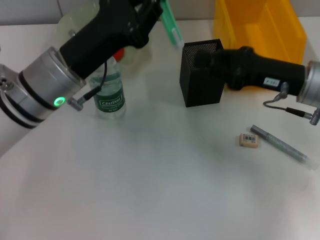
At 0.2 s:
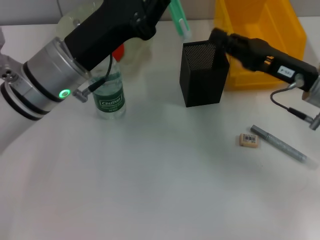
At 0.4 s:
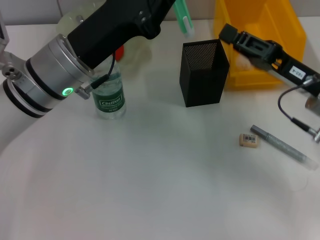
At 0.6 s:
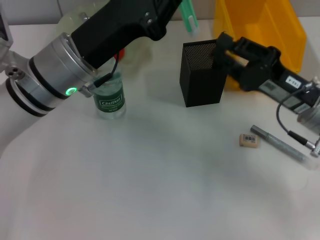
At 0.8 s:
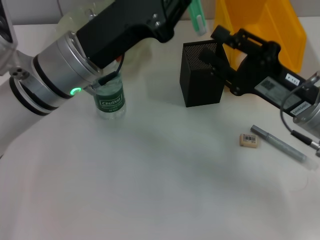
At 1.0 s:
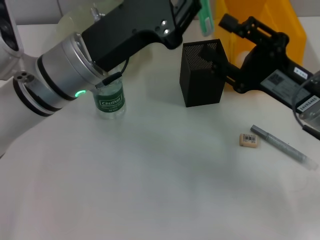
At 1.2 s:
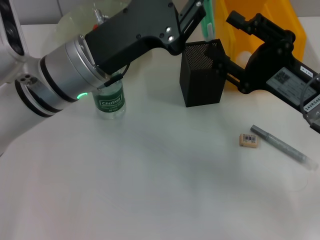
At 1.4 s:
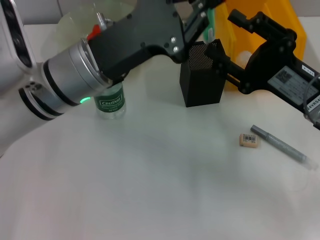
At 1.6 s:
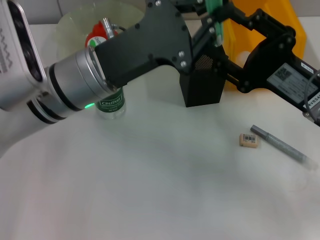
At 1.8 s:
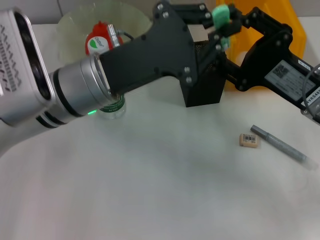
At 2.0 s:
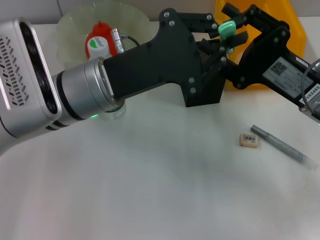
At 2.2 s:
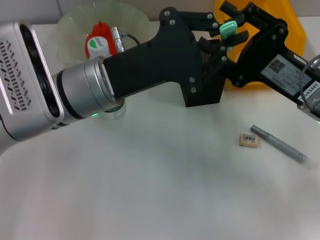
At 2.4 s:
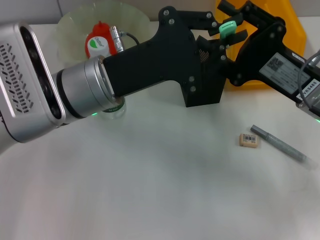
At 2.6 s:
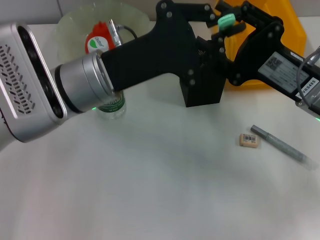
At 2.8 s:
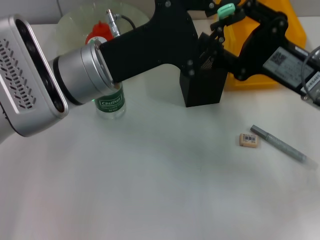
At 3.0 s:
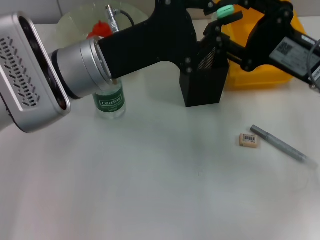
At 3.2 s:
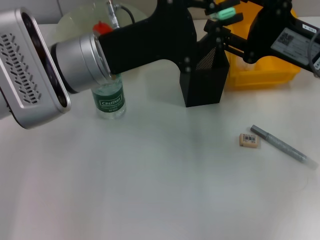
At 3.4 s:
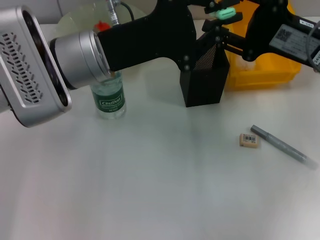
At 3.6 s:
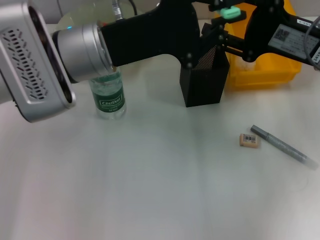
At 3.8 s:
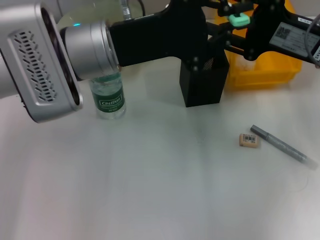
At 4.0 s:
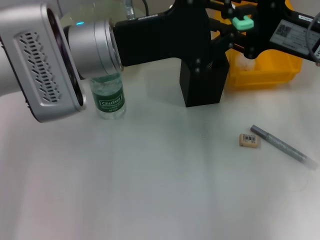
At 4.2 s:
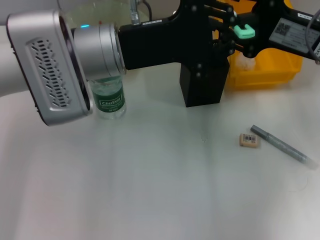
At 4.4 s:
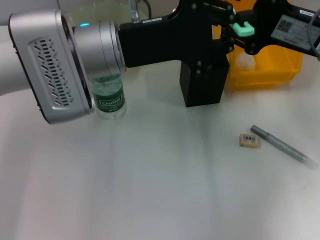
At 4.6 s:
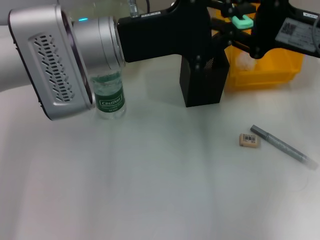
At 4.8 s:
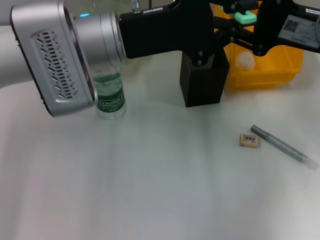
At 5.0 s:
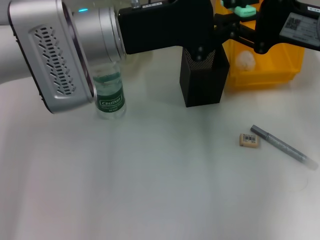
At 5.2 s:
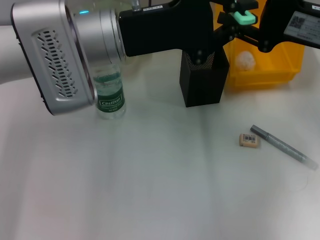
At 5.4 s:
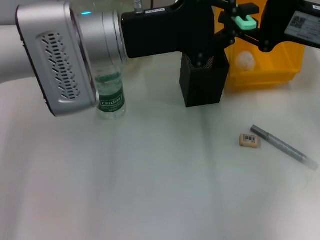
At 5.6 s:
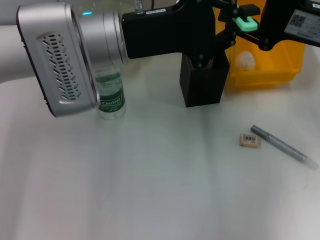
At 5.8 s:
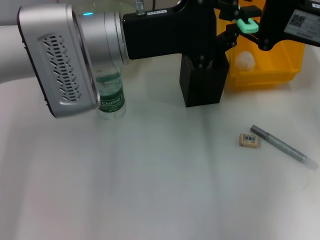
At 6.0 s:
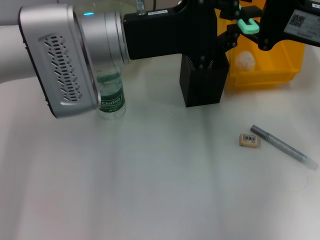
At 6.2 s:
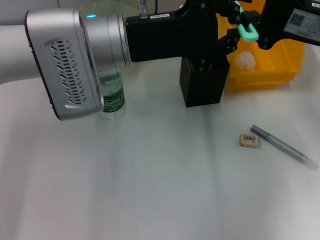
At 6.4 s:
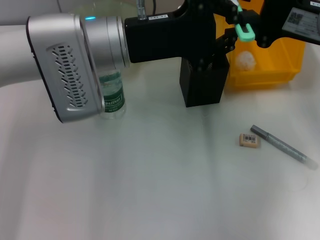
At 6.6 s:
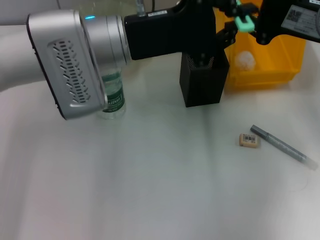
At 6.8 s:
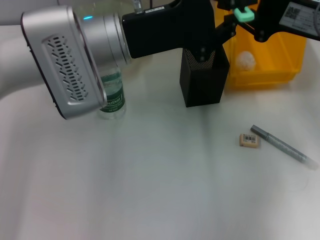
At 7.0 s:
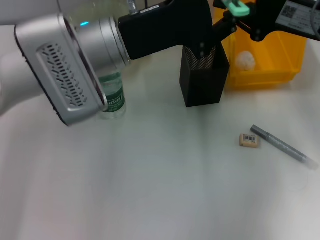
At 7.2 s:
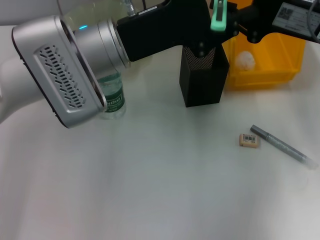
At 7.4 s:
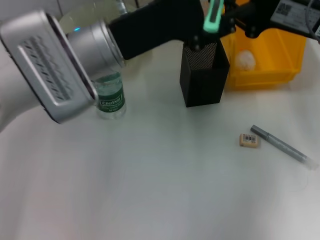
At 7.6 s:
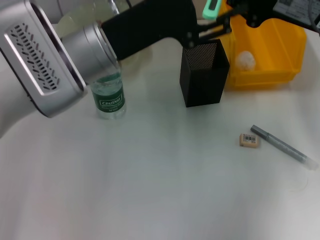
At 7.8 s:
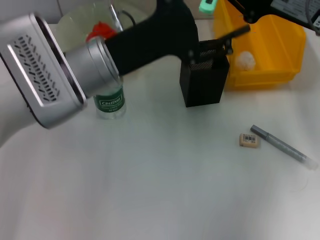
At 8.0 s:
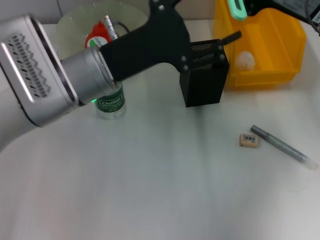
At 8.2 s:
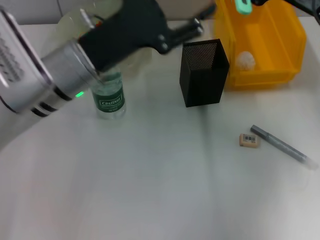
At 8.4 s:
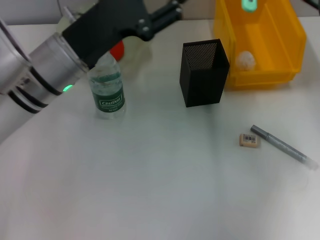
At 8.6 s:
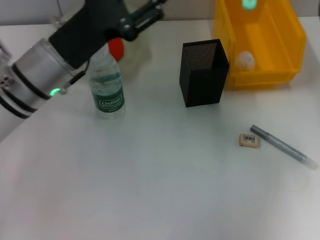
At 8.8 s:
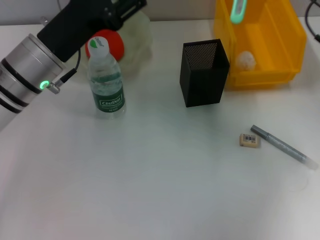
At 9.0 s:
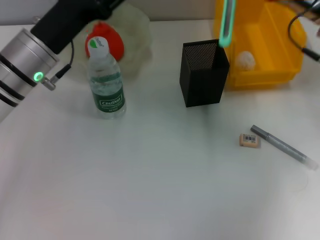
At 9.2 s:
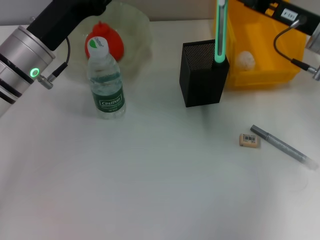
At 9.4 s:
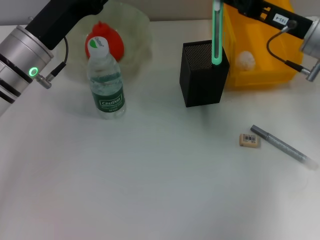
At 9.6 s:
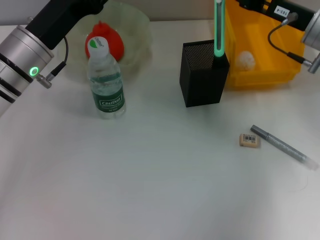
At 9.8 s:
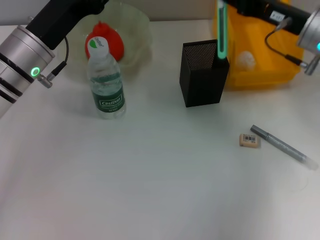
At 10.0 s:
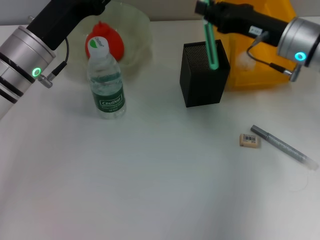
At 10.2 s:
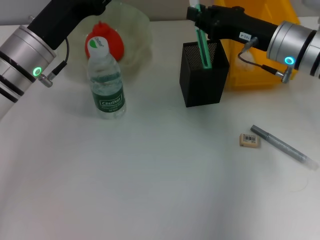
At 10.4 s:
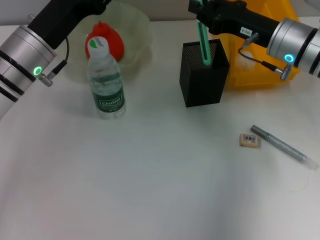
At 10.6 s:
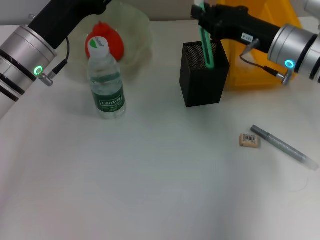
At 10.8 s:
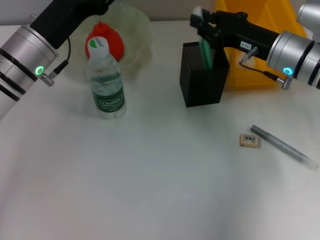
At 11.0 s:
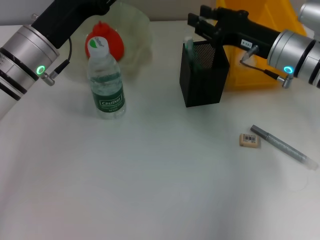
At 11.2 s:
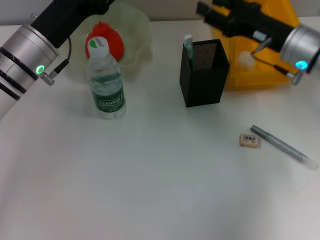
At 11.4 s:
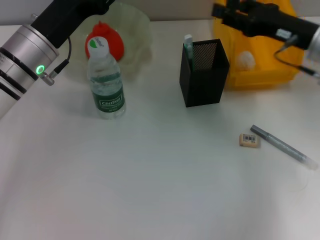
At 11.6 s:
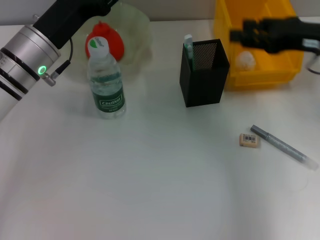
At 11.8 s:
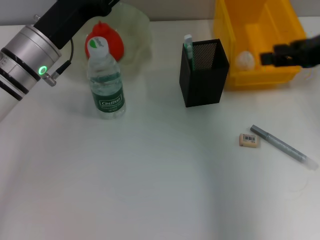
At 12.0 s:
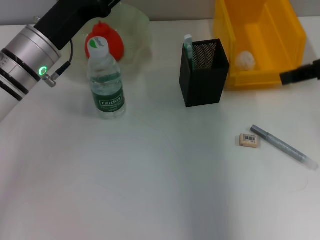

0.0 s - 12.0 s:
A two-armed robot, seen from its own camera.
Step, 0.0 s - 11.2 s: Place the blue utility knife into the pen holder with the right hand.
0.0 s - 1.6 s: The right gripper opens its fingers.
4.4 s - 6.0 s: The grippers make only small movements.
6.0 s - 7.6 s: The left gripper opens.
7.6 s - 9.0 s: The left gripper travels to the left by some 5 cm.
9.0 s - 10.4 s: The right gripper moves some 5 cm.
10.4 s - 12.0 s: The right gripper goes about 15 cm upward, to the right and backward, and opens up.

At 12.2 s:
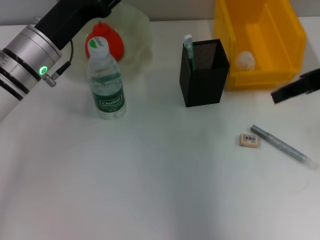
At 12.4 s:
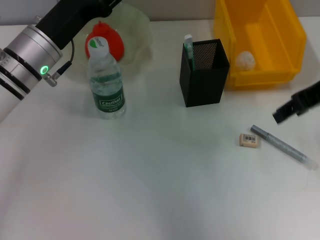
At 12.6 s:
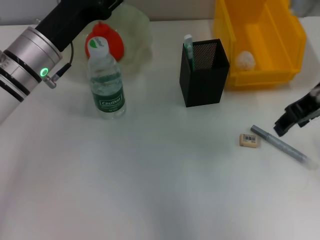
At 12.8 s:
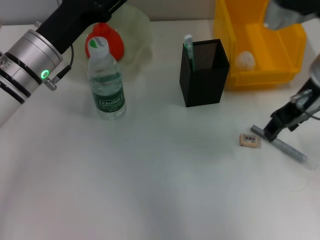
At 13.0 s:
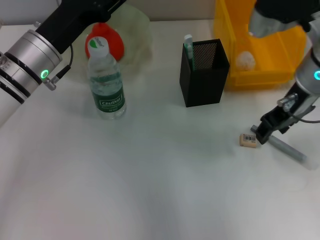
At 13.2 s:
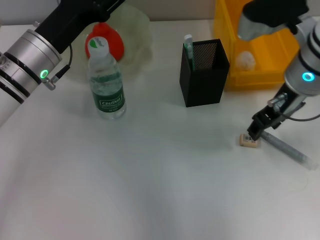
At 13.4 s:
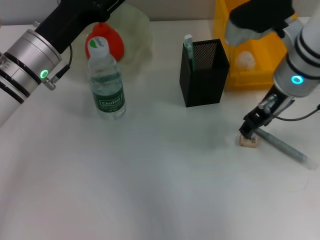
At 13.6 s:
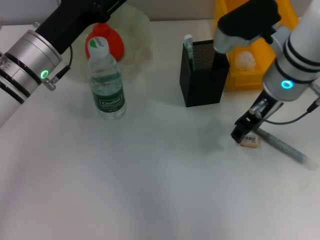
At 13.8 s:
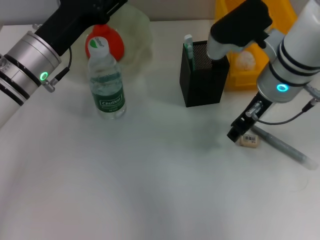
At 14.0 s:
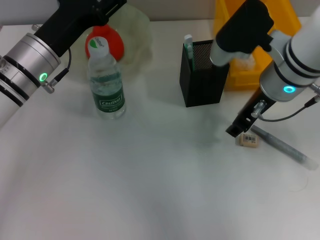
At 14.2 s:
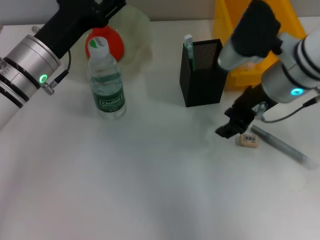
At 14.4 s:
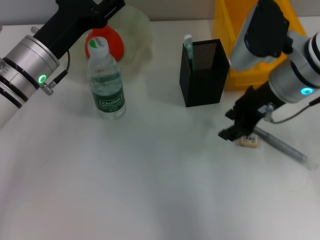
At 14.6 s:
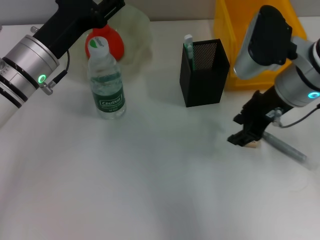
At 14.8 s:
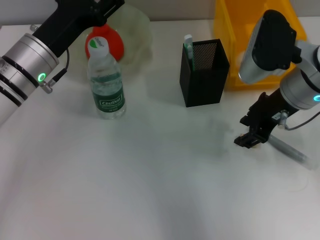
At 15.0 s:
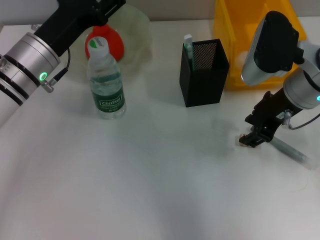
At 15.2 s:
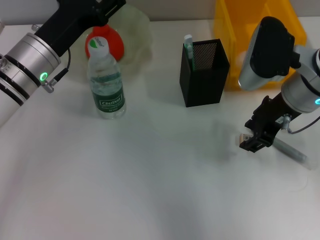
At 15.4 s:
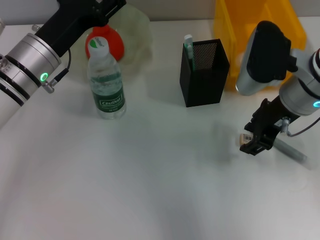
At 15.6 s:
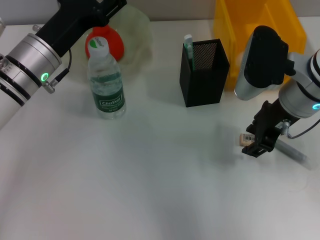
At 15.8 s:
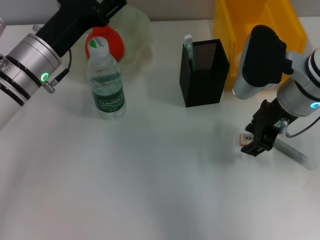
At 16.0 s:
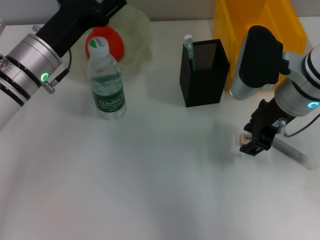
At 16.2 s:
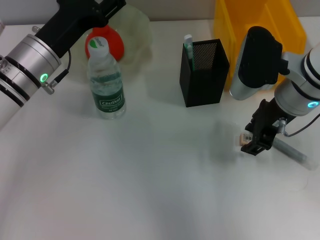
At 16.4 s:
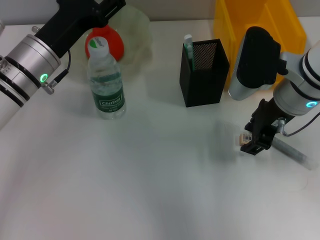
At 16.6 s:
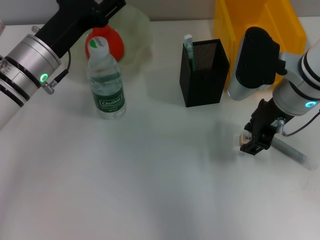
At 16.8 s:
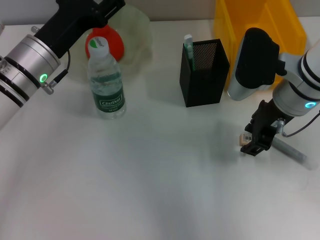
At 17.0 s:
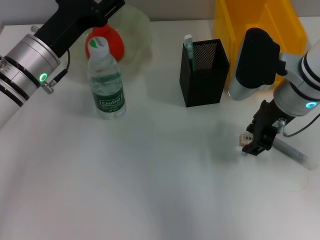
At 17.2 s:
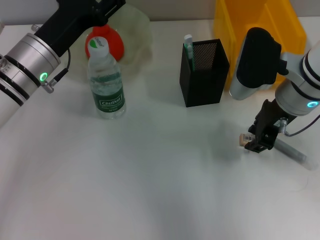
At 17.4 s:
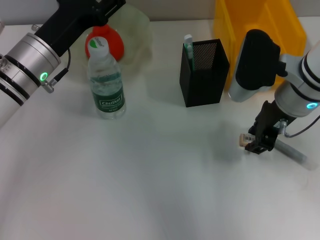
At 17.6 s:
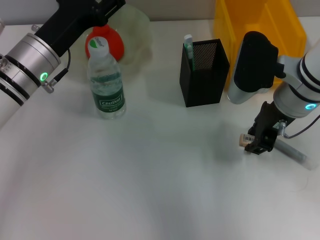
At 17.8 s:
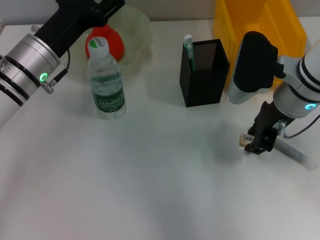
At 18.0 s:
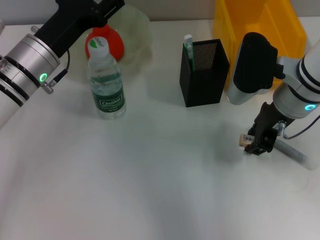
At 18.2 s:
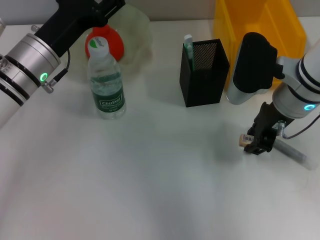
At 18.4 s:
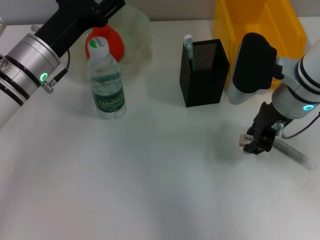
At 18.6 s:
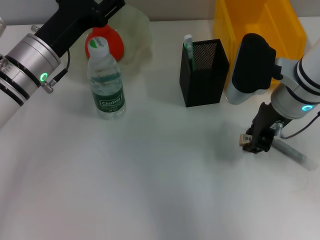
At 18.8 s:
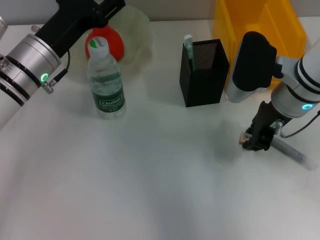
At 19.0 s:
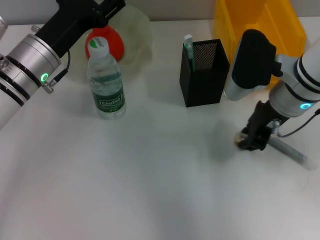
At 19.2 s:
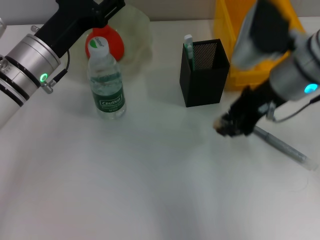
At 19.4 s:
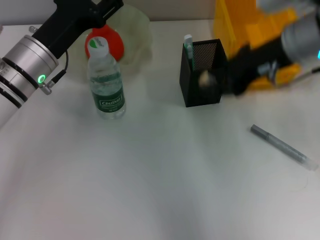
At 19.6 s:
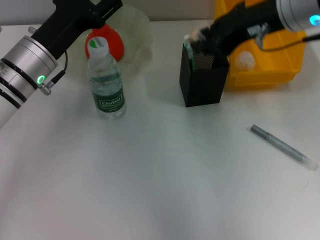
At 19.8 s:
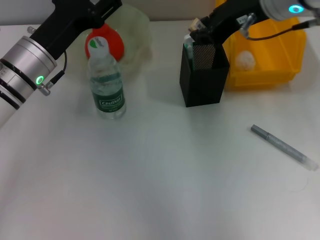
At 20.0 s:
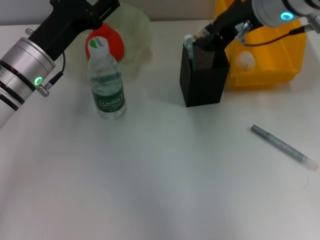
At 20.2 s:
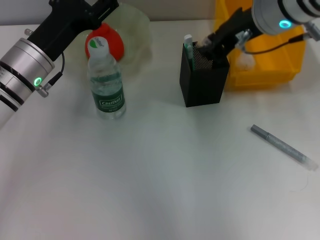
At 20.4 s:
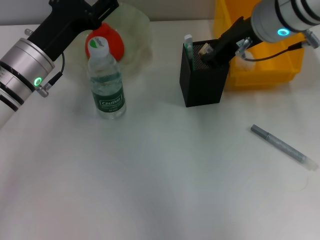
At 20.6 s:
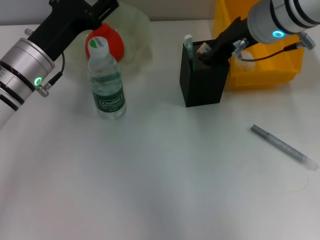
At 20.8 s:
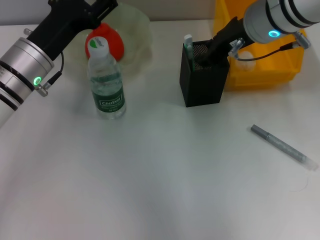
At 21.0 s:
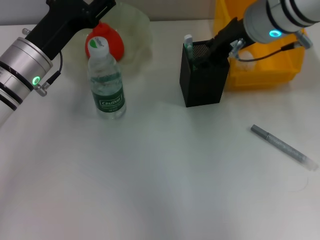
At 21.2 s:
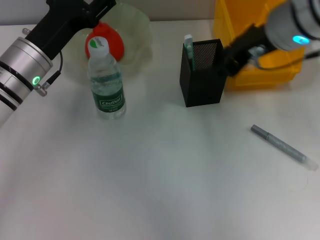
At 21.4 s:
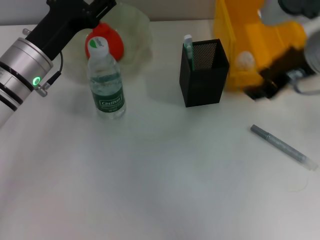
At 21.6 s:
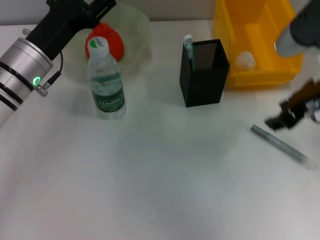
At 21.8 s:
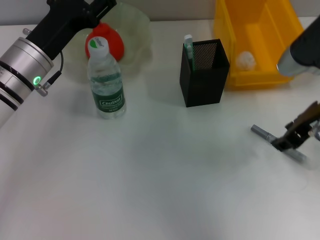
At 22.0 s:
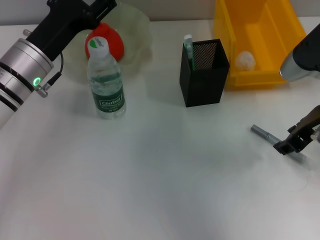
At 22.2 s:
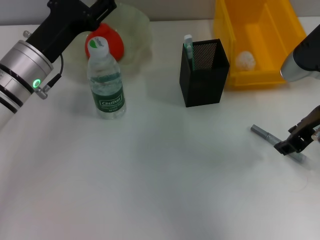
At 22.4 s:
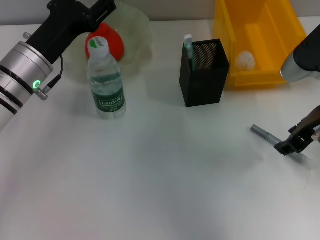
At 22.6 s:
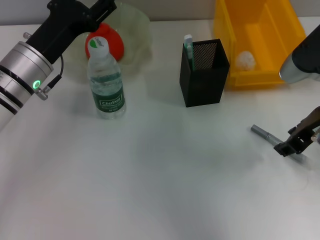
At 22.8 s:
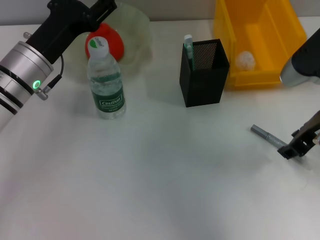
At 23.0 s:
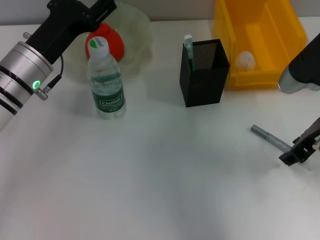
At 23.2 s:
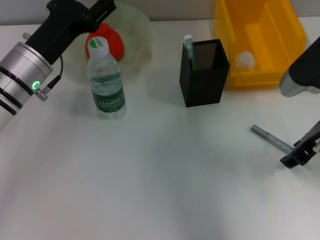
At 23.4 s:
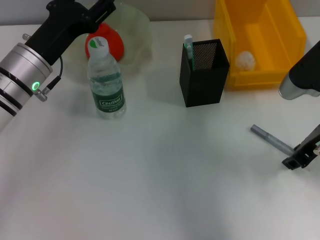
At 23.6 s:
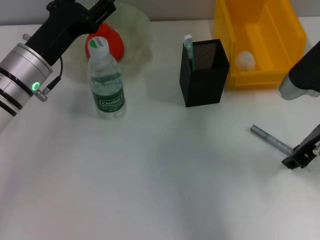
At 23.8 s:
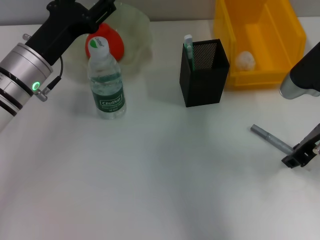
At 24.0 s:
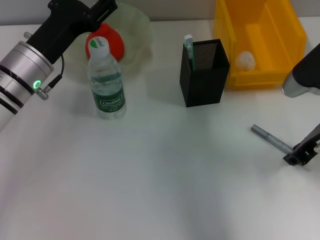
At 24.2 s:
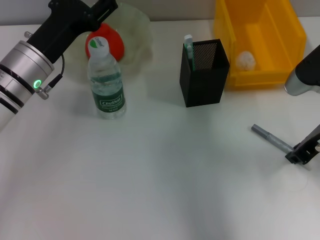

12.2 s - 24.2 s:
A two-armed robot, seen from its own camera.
Step, 12.2 s - 18.4 s: Grab the eraser with the right hand.
Step, 18.6 s - 21.0 s: Put the eraser into the pen holder with the right hand.
12.2 s - 13.8 s: The right gripper moves to the left and downward, about 15 cm.
15.2 s - 16.6 s: The grippers move only a little.
16.6 s - 18.2 s: Neither gripper changes place.
18.2 s - 19.8 s: The right gripper shifts approximately 10 cm upward.
19.8 s - 21.2 s: There are only small adjustments of the grippers.
21.2 s - 22.6 s: The right gripper heads to the right, downward and backward, covering roughly 10 cm.
22.6 s - 24.2 s: There are only small adjustments of the grippers.
